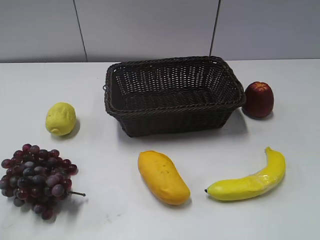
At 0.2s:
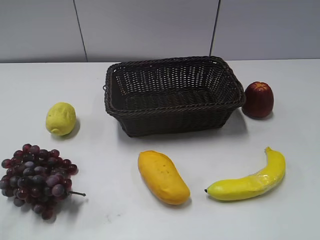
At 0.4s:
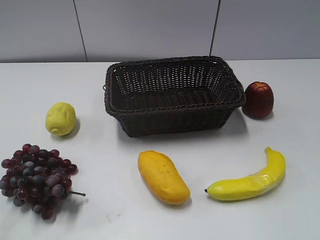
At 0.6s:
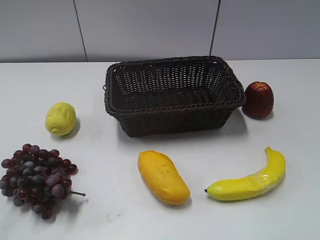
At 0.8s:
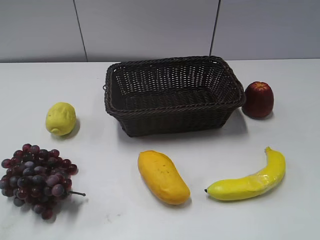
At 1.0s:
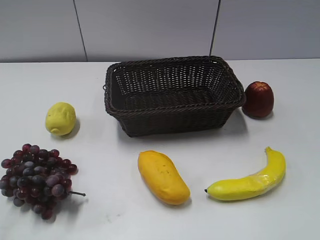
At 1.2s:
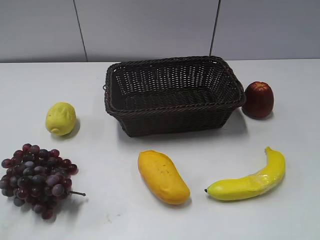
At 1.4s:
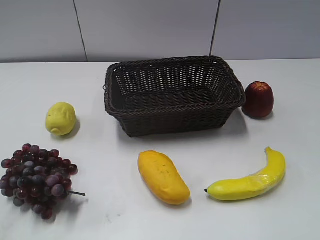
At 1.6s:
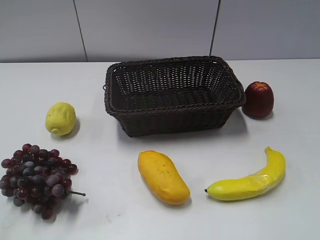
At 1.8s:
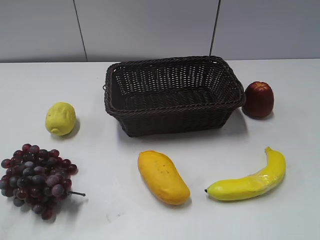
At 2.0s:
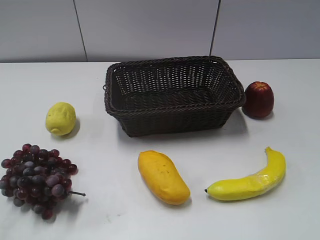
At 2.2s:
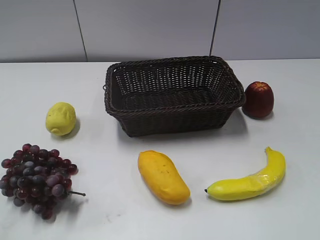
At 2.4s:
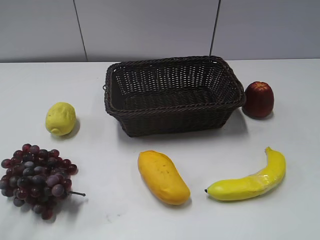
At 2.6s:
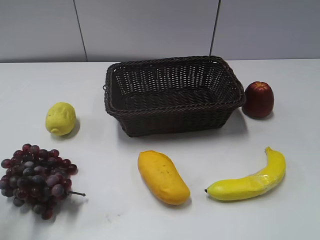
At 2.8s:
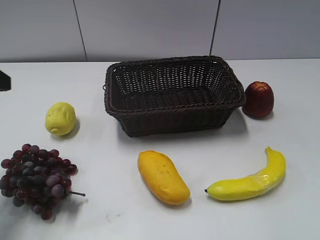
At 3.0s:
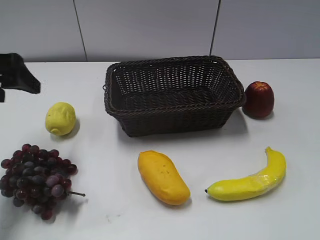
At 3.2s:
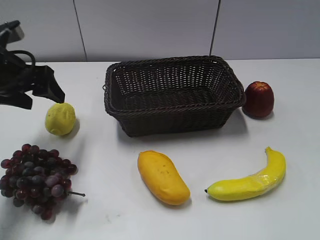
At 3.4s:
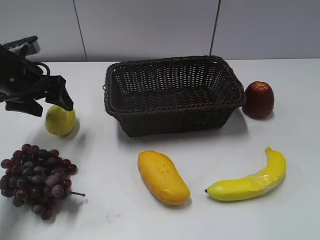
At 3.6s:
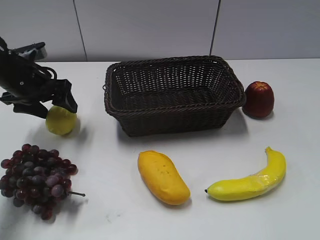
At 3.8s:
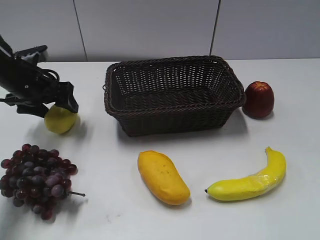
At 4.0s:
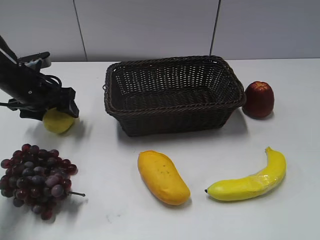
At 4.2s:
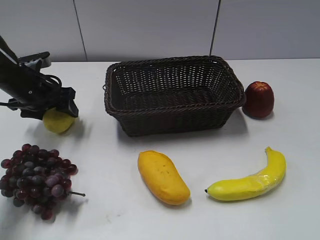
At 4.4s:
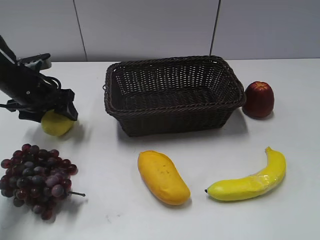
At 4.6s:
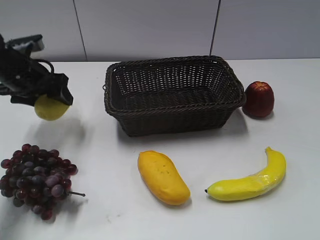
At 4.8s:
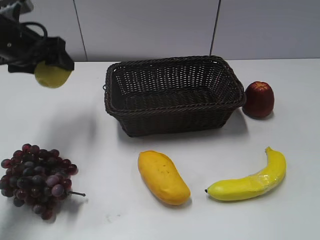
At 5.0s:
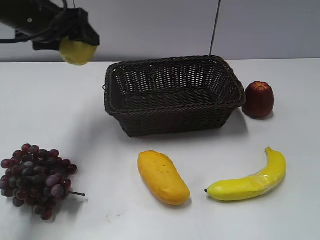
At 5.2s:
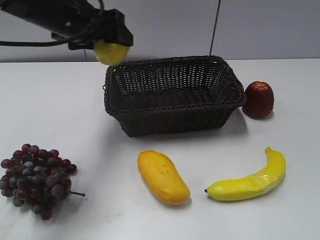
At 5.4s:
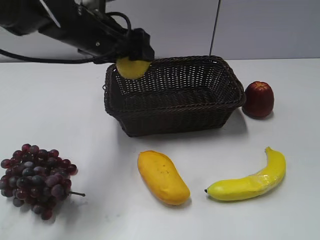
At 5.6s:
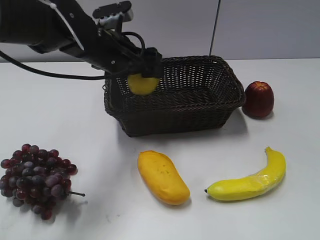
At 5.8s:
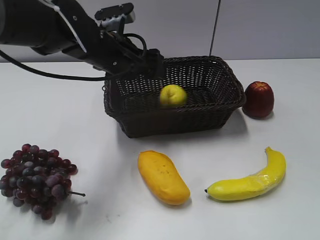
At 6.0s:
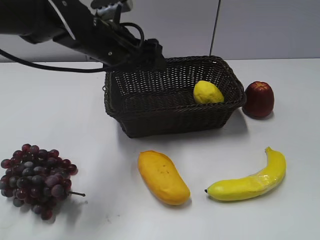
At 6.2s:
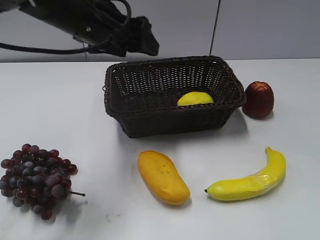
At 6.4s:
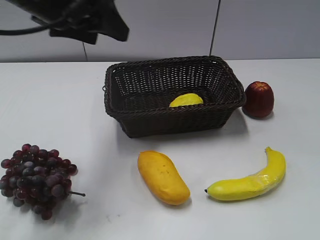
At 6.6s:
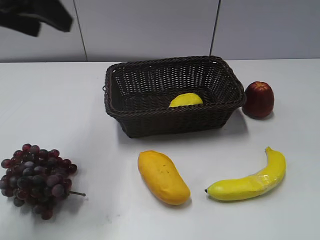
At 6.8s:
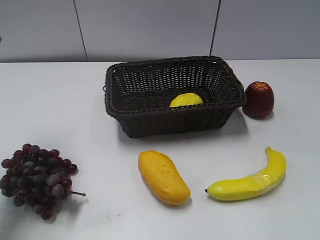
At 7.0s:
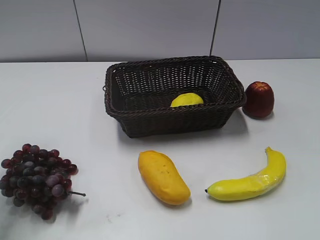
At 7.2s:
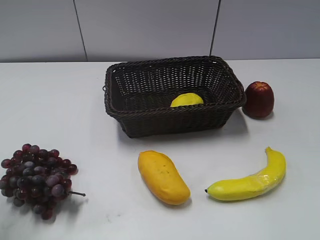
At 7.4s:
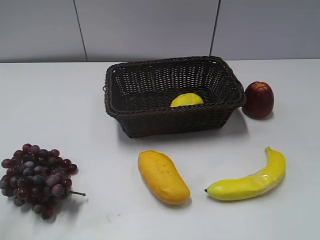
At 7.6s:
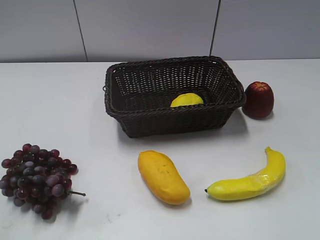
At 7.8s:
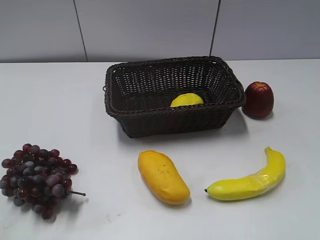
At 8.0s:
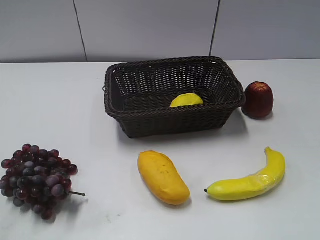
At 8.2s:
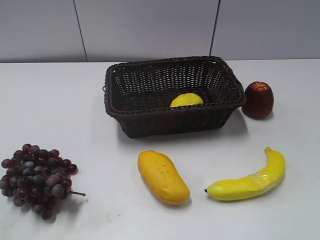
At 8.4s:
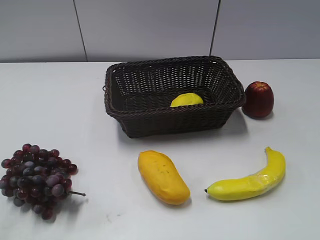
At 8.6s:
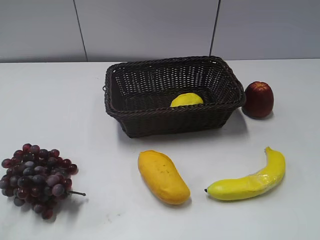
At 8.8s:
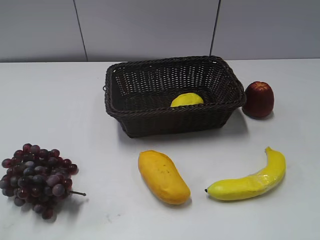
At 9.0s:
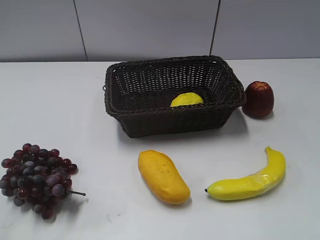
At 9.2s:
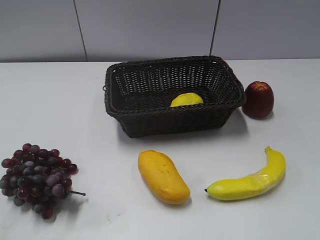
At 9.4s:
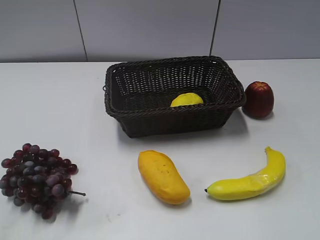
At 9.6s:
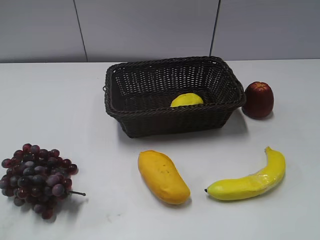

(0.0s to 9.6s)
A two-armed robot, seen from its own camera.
Step, 2.8s - 4.2s: Grasp the lemon with left gripper.
Step, 4.4s - 5.8s: Place the lemon in the basket with left gripper.
1.6s - 3.2s: The left gripper shifts some 35 cm forward, and opens.
3.2s - 4.8s: The left gripper travels downward and back again, some 10 cm each way, and closes.
4.8s - 6.4s: The left gripper travels upward, to the right and backward by about 15 cm, and opens, then closes again.
6.4s - 8.0s: The left gripper goes approximately 35 cm backward and to the left, and closes up.
